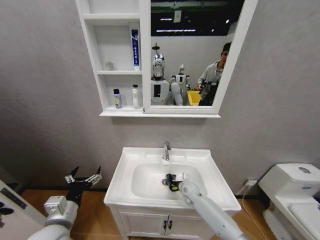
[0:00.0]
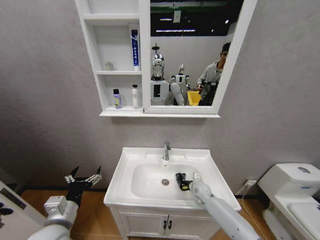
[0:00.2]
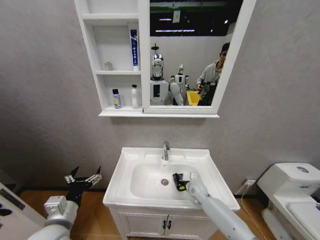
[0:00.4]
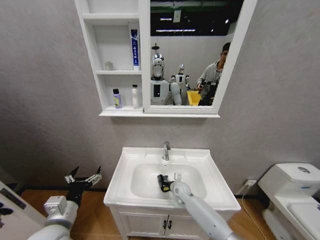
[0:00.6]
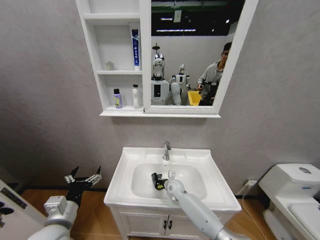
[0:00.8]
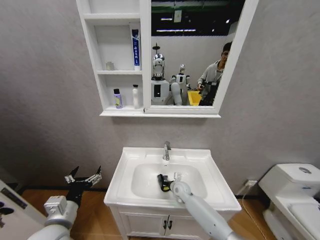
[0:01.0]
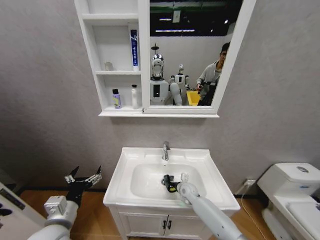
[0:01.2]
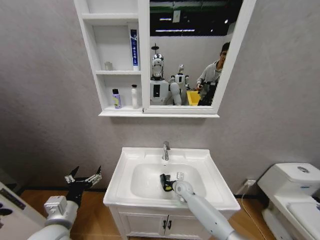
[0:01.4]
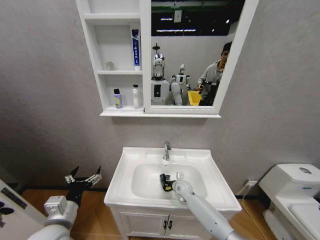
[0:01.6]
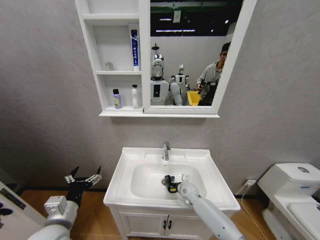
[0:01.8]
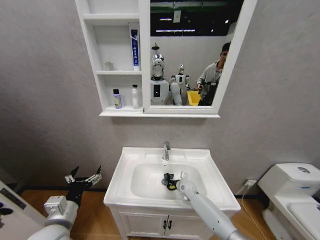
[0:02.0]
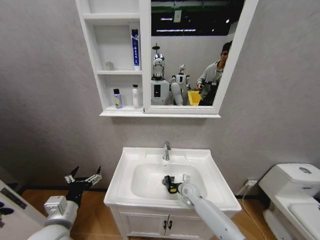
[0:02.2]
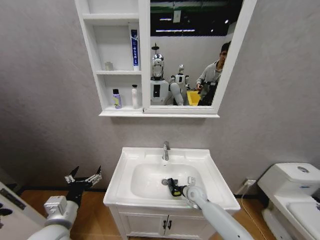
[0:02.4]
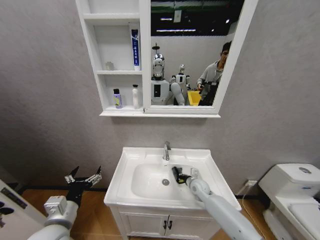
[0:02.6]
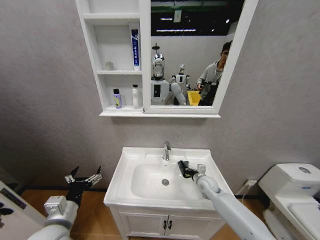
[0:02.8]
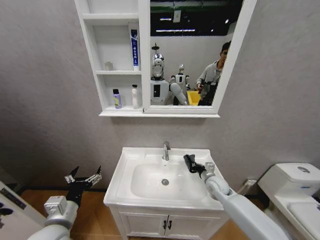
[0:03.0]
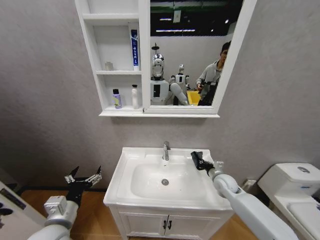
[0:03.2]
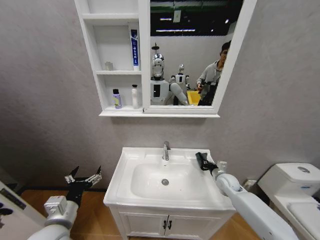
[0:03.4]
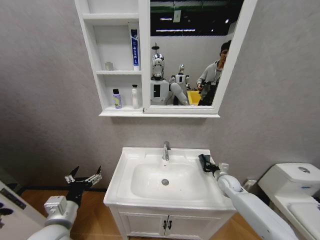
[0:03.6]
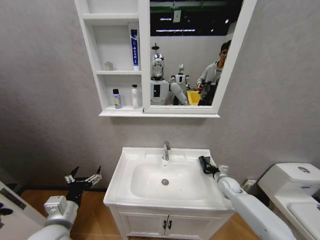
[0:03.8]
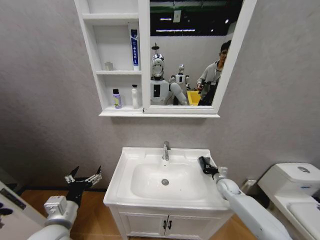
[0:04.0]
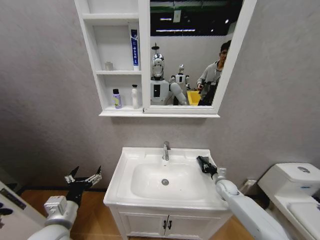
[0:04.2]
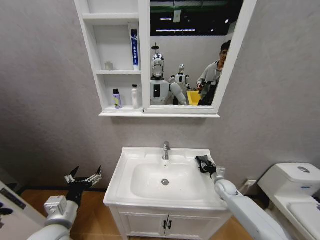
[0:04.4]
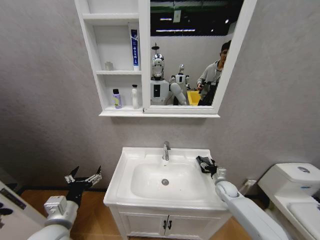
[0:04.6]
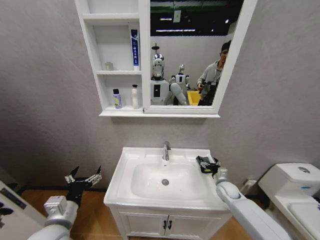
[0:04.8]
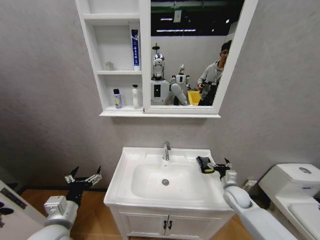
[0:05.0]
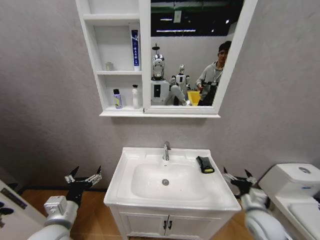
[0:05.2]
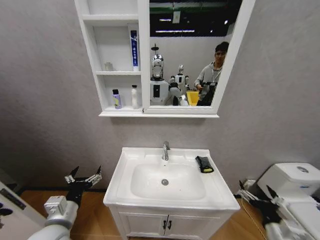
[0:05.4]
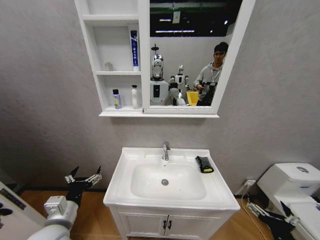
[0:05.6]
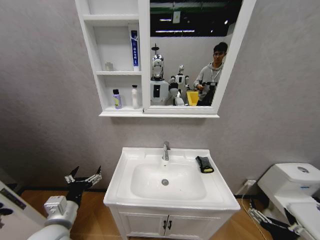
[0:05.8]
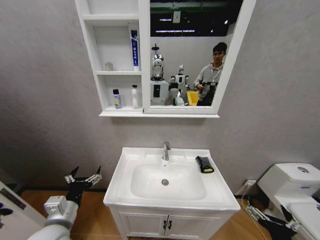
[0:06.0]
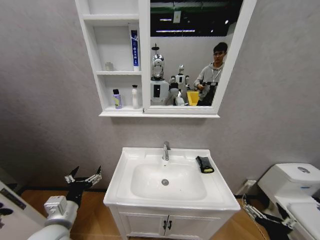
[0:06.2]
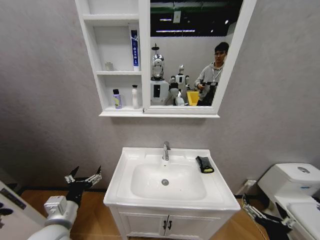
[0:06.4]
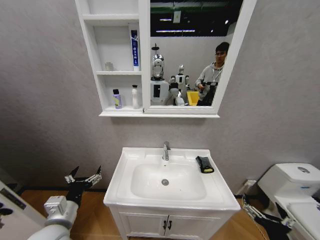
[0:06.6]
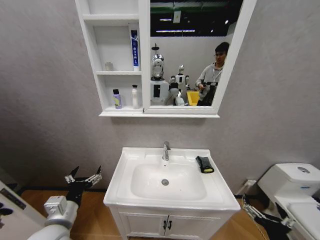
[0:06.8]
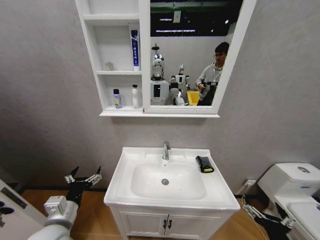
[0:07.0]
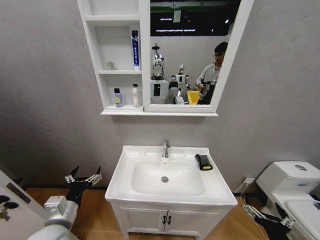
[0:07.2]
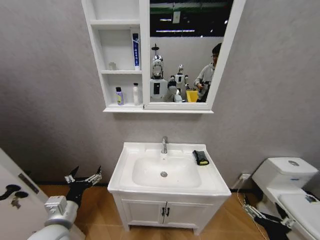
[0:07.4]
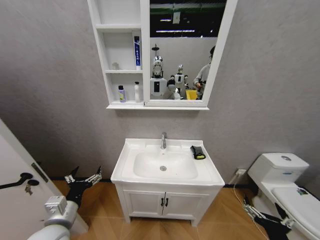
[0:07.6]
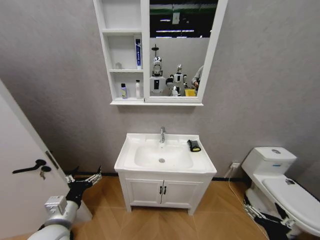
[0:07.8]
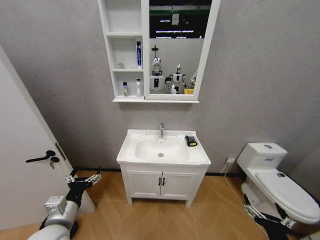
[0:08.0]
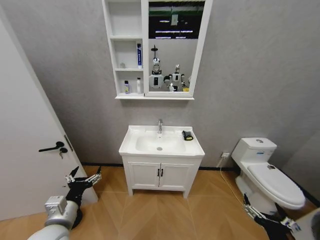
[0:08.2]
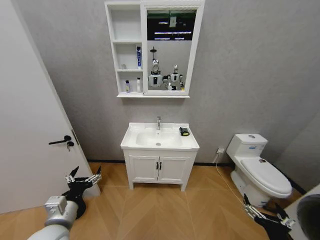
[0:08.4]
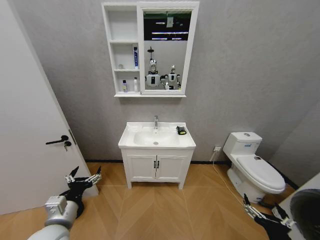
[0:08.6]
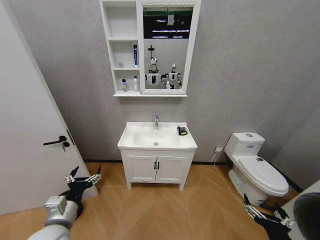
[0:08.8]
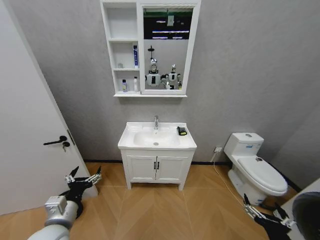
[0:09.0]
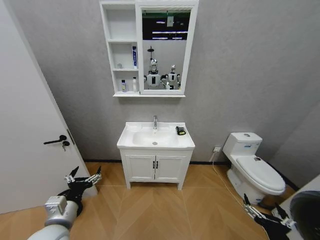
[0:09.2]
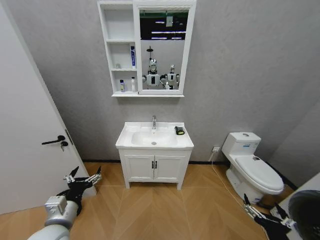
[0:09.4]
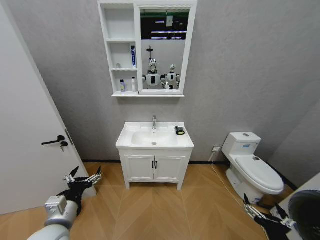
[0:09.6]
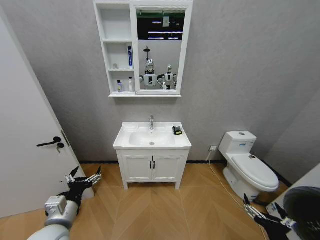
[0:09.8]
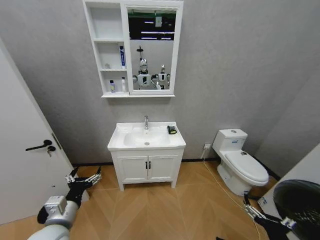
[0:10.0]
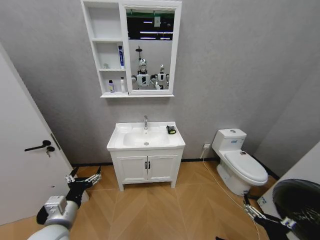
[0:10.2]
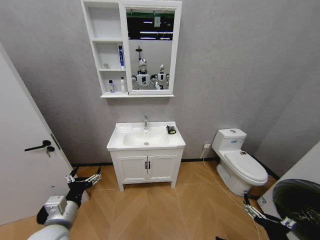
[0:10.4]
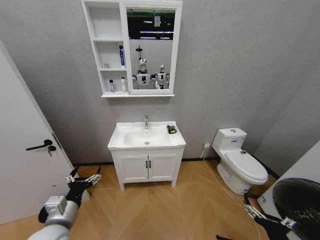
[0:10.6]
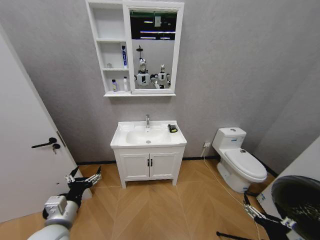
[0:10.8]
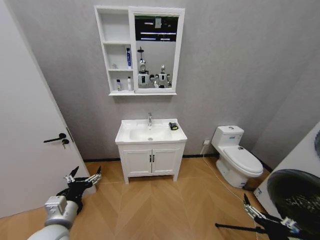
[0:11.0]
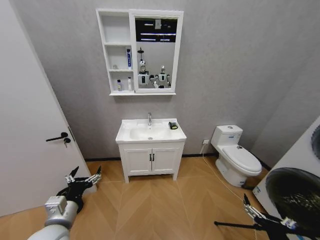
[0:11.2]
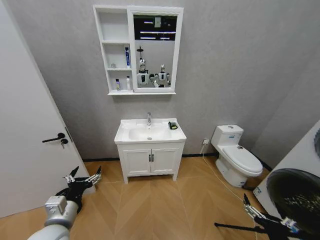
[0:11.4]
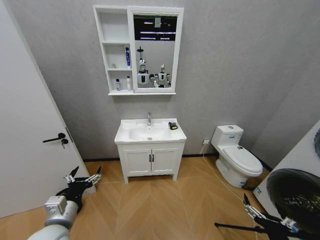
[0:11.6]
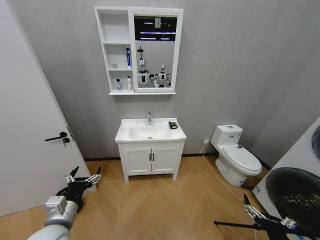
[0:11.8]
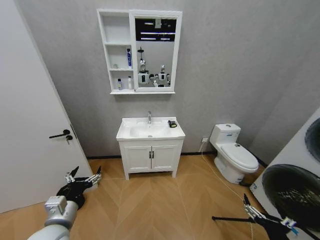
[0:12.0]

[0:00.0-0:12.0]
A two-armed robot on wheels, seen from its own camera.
Task of the whole recording: Move facial cleanser and shampoo from washbasin to cabinet, then wipe washbasin with towel.
0:00.0 to 0:01.6: The right gripper goes left and right, roughly 15 cm each way, reversing 2 times.
0:01.6 to 0:03.0: The right gripper goes some 15 cm to the right and upward.
0:03.0 to 0:04.4: The right gripper travels to the right and downward by about 10 cm, and opens up.
0:04.4 to 0:06.0: The right gripper heads backward, covering some 35 cm, and opens its fingers.

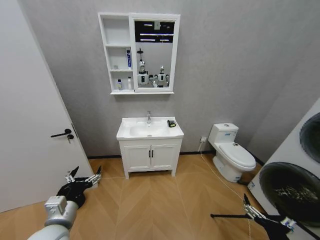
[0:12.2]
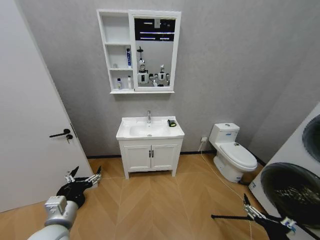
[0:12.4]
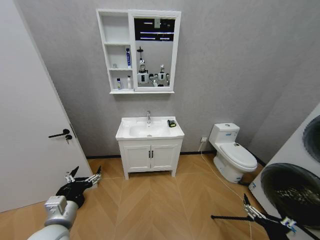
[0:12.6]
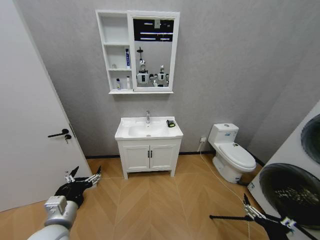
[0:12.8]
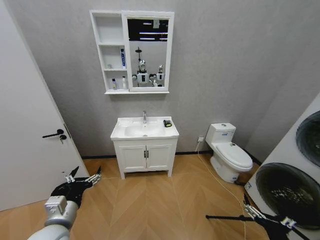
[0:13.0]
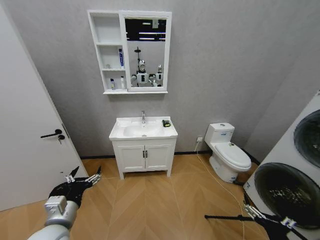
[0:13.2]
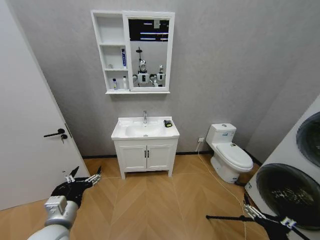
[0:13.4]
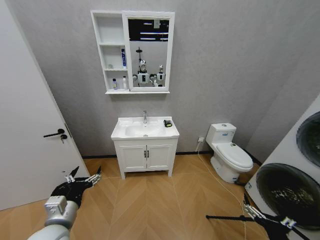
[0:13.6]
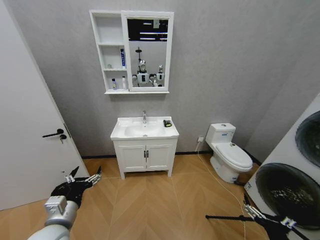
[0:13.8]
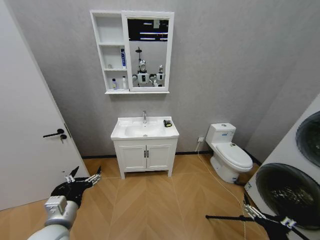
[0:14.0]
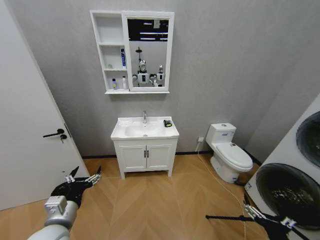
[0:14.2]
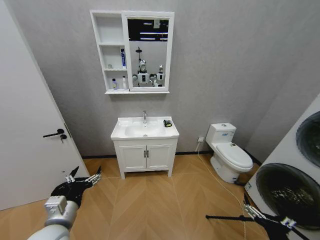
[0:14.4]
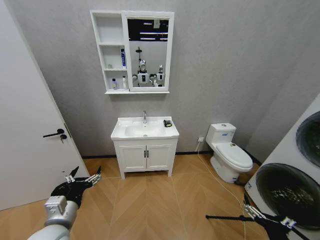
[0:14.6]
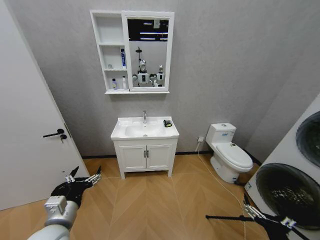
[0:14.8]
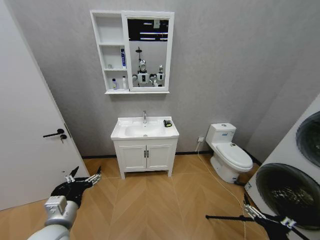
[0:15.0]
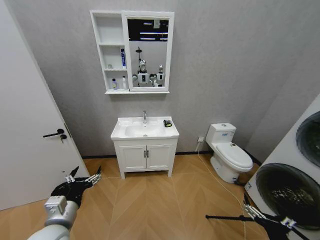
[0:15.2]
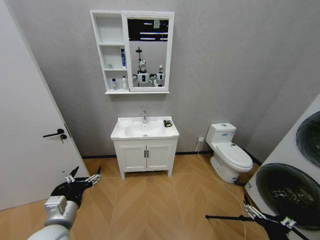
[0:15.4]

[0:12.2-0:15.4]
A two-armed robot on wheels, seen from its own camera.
Task of the whole recording: Move facial cleanser and shampoo from washbasin to cabinet, then wipe washbasin with towel.
0:12.2 to 0:15.4: Both grippers stay about where they are.

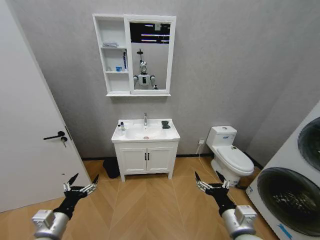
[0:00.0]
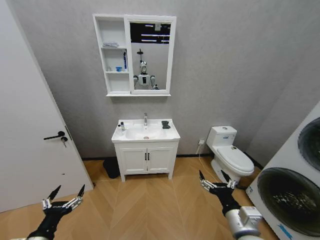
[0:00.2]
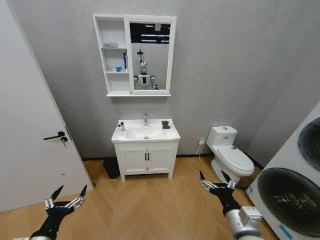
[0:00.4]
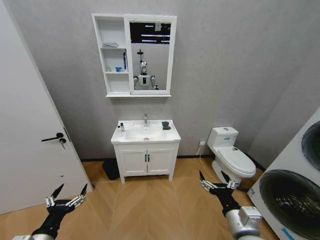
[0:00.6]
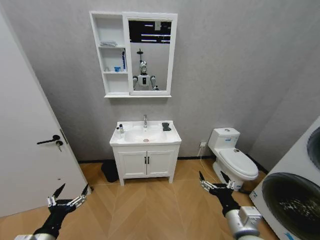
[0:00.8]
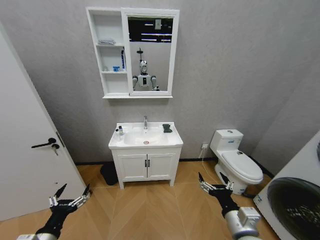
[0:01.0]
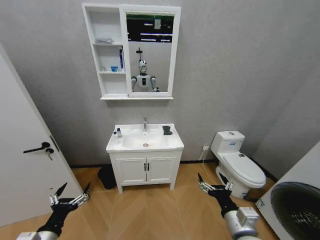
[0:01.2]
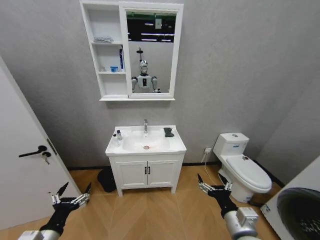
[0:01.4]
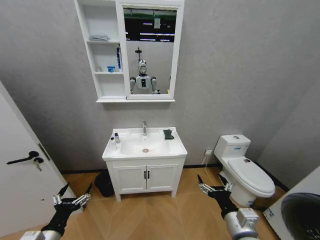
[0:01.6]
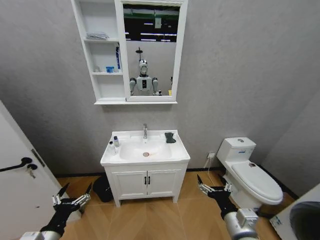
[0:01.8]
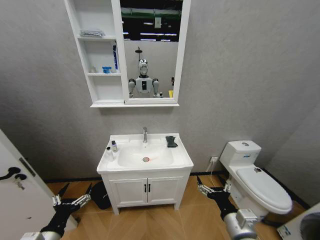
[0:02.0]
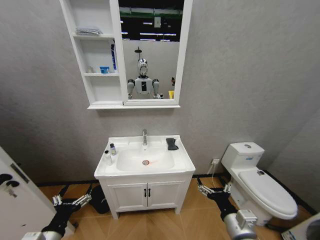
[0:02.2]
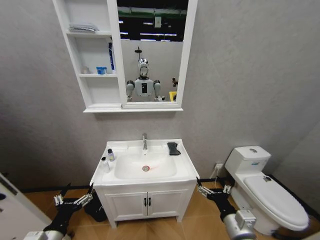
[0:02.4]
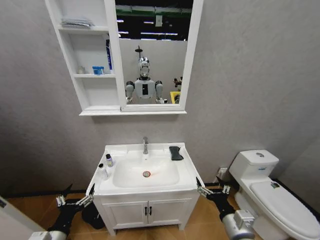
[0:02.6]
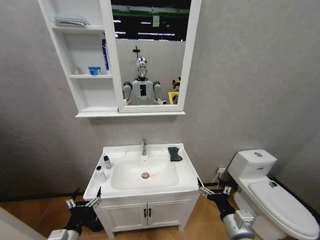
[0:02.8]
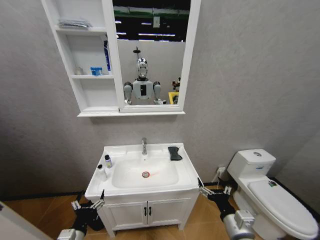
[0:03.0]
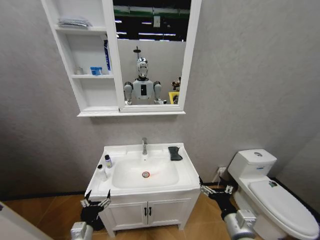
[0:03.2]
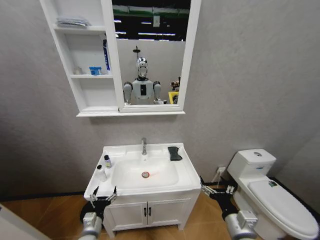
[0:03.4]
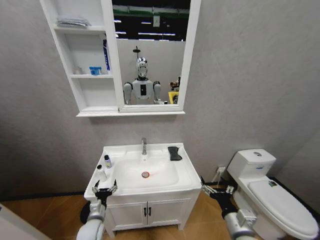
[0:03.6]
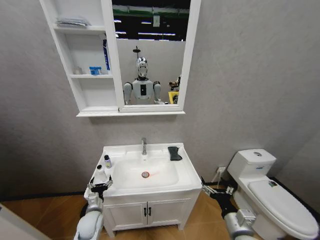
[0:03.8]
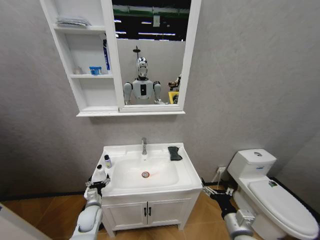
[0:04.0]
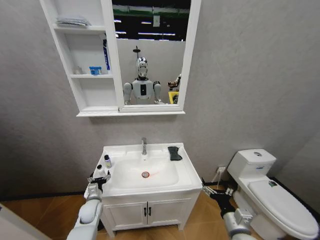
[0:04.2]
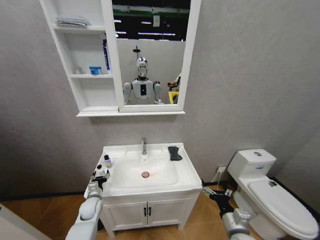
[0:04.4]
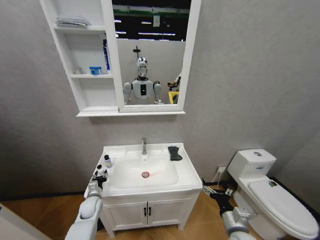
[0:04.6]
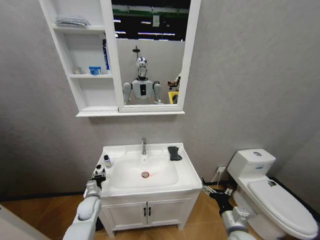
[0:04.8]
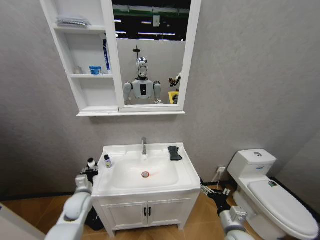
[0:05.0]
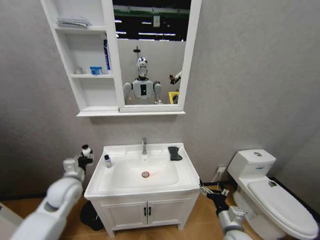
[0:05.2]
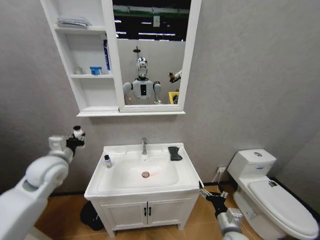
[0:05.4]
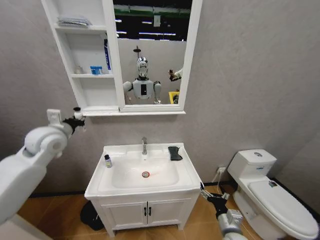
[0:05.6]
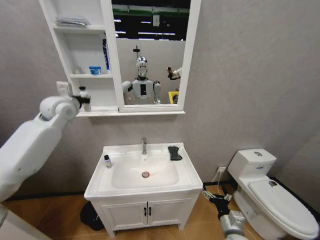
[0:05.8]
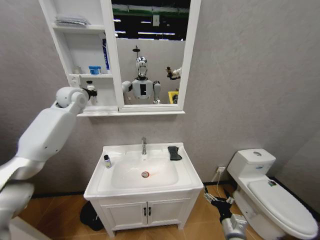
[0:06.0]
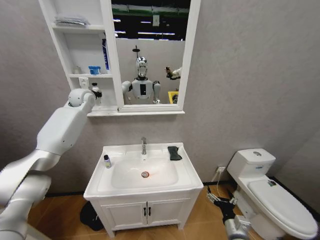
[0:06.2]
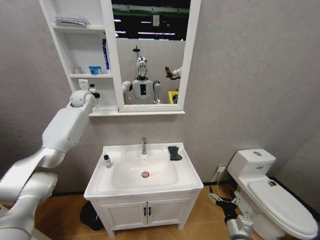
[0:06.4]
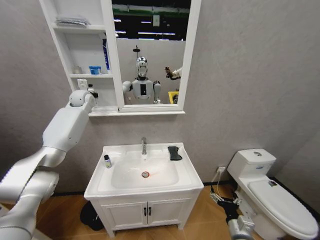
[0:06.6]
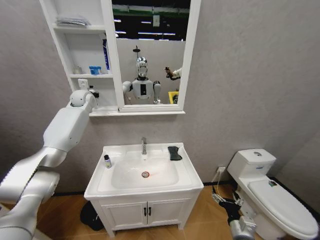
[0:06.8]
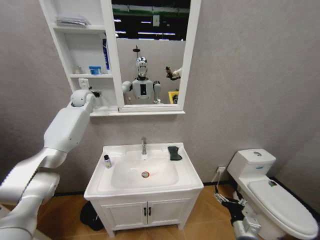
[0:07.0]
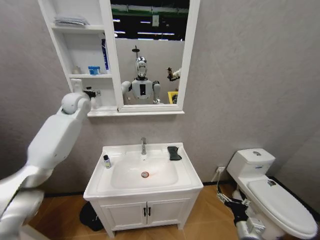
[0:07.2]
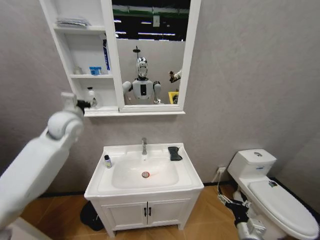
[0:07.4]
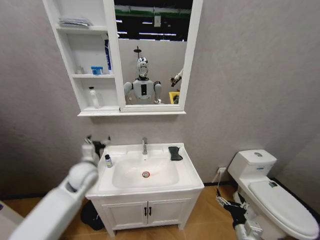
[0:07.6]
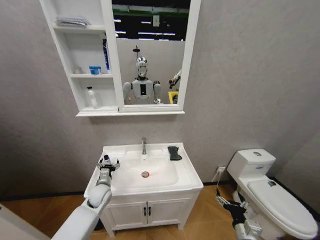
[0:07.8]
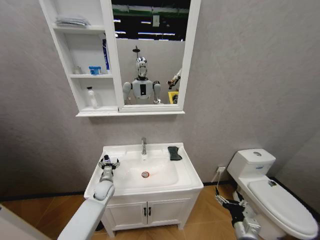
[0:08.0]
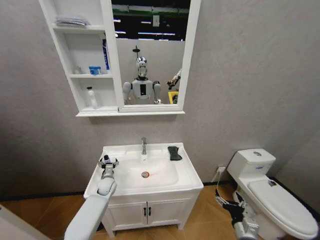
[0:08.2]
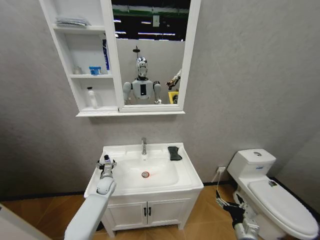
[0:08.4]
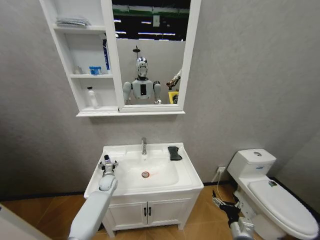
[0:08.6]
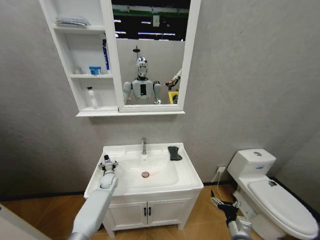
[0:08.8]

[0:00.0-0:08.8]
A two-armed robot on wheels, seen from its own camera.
Task of the whole recording: Move facial cleanser and shampoo from washbasin to cabinet, then wipe washbasin with towel.
0:01.4 to 0:03.0: The left gripper travels downward and to the right by roughly 10 cm.
0:03.0 to 0:04.4: The right gripper moves approximately 5 cm. The left gripper moves forward, some 20 cm.
0:04.4 to 0:05.8: The left gripper shifts roughly 50 cm upward, and closes its fingers.
0:05.8 to 0:07.4: The right gripper ends up some 5 cm from where it was; the left gripper reaches approximately 15 cm forward, then returns, and opens.
0:07.4 to 0:08.8: The left gripper is displaced downward by some 40 cm.
